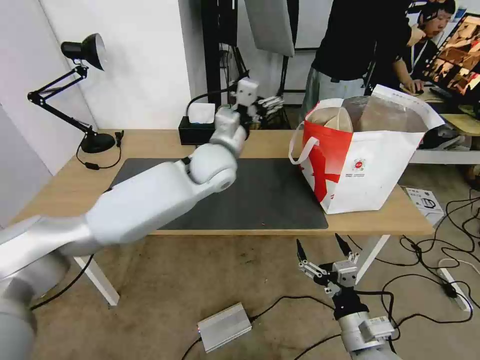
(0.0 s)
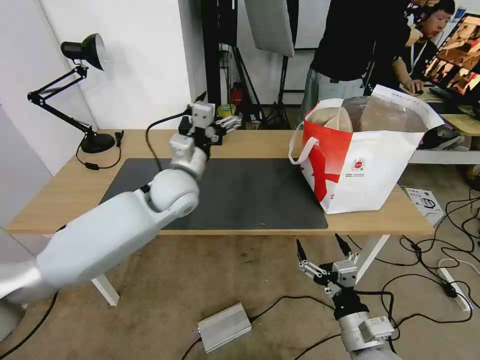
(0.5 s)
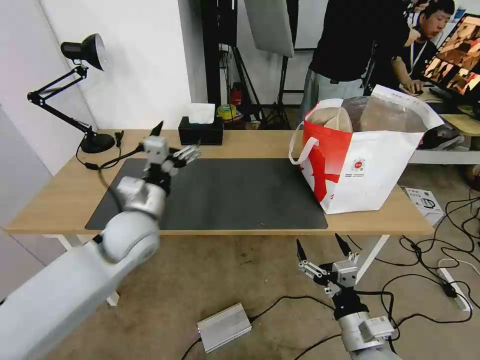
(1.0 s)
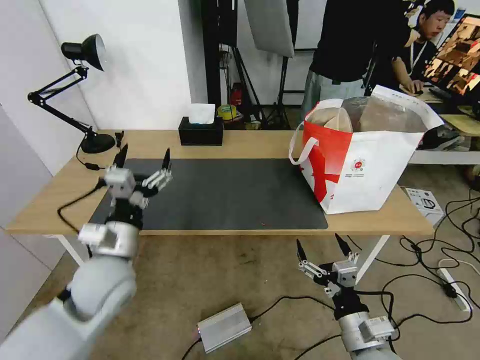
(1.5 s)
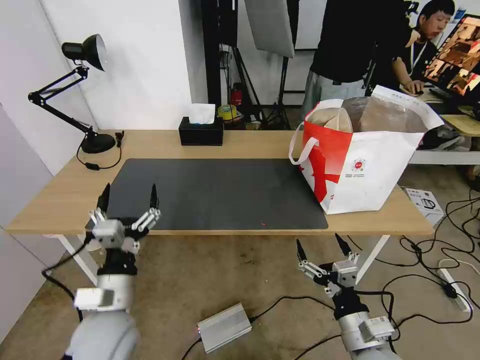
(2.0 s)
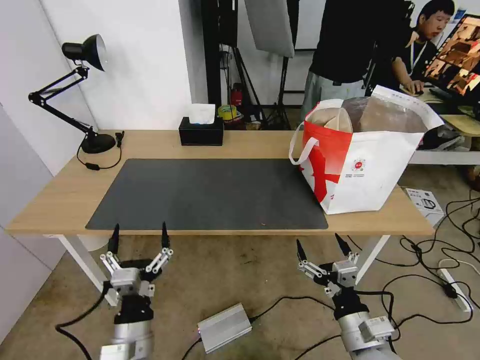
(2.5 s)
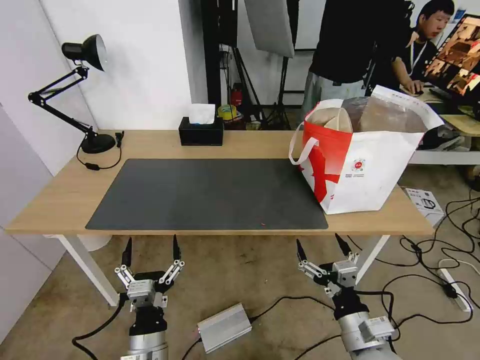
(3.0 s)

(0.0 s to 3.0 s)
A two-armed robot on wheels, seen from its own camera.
Task of the whole recording: Pick up the trash from the table and place it into the takeout bag.
0.0 s - 1.5 s: The left gripper is displaced backward, to the left and downward by about 30 cm.
1.5 s - 3.0 s: The left gripper is displaced backward, downward and to the right by approximately 20 cm.

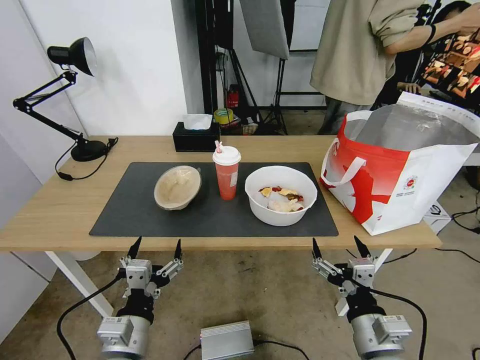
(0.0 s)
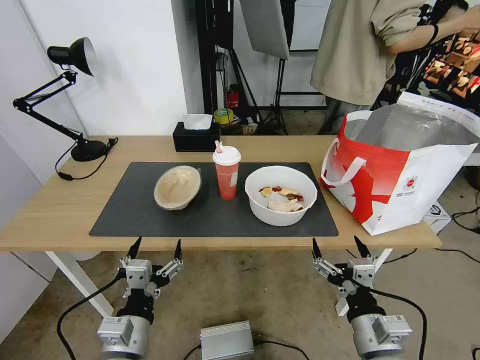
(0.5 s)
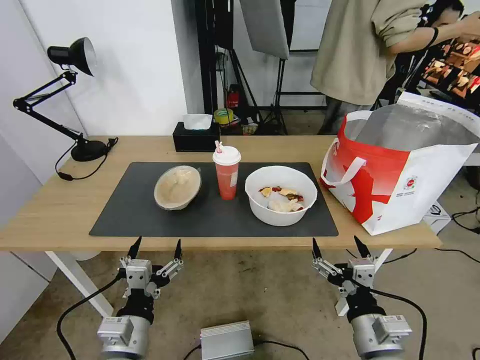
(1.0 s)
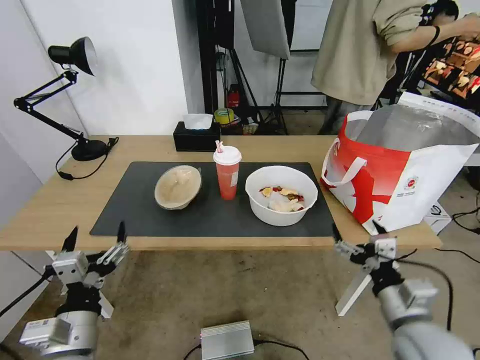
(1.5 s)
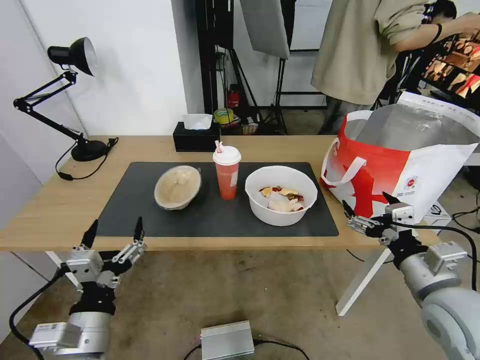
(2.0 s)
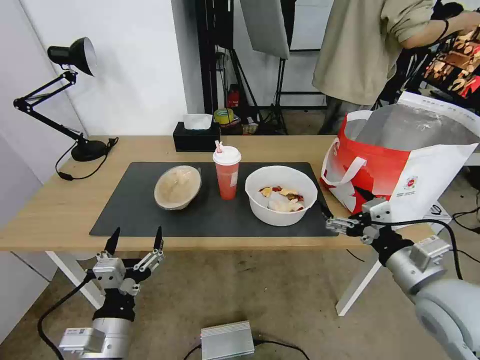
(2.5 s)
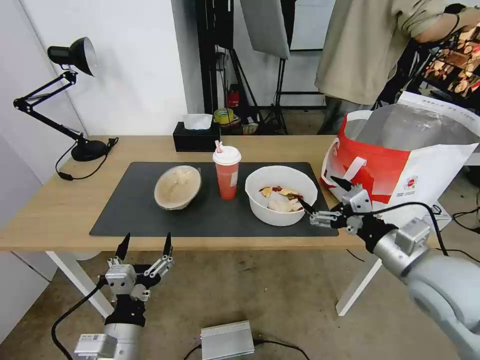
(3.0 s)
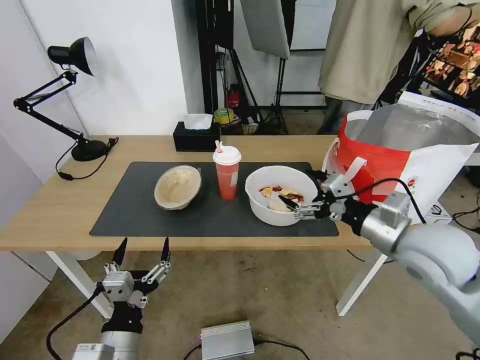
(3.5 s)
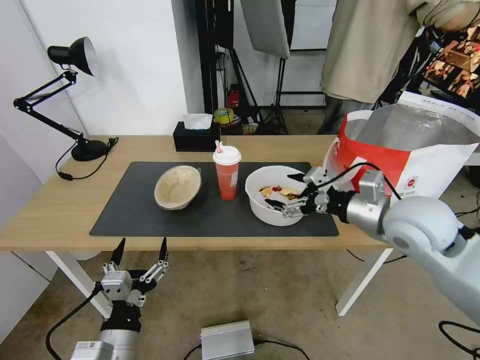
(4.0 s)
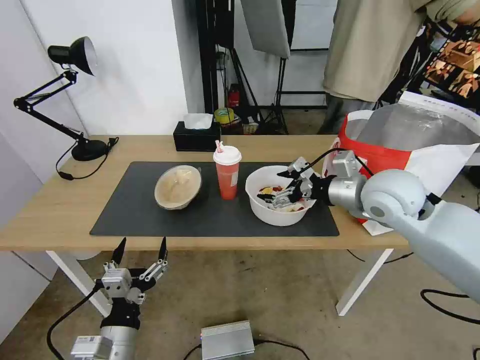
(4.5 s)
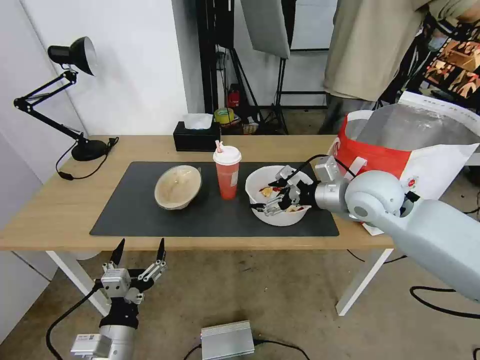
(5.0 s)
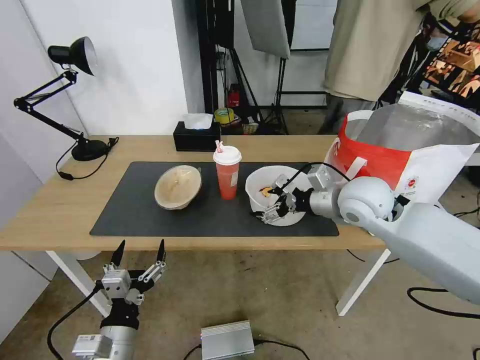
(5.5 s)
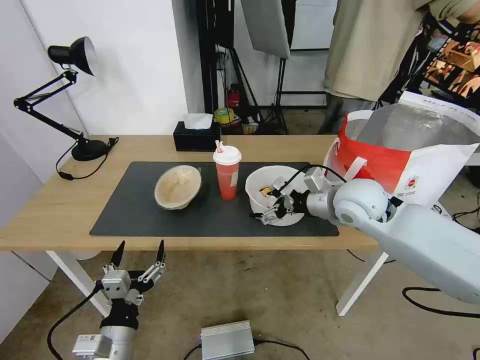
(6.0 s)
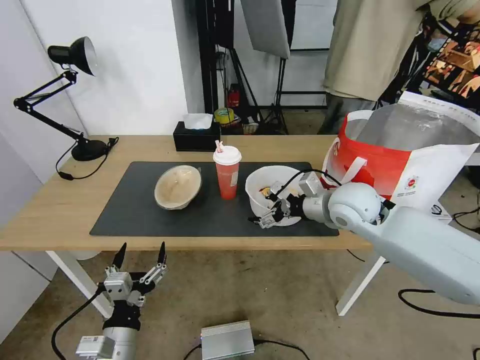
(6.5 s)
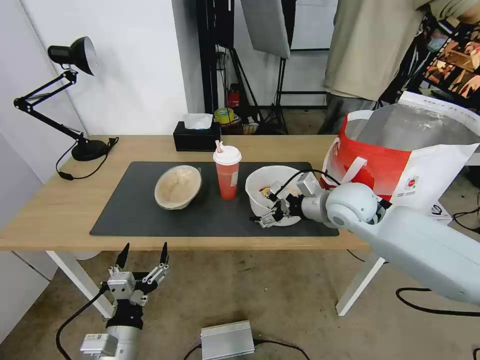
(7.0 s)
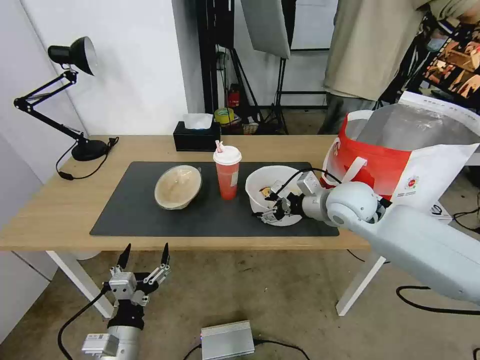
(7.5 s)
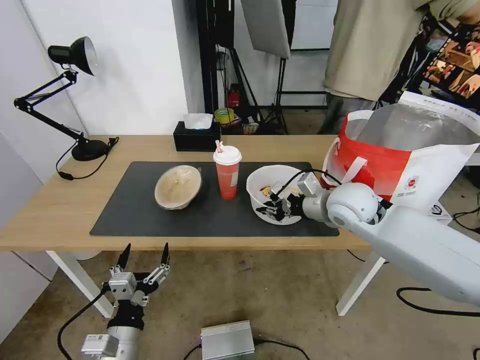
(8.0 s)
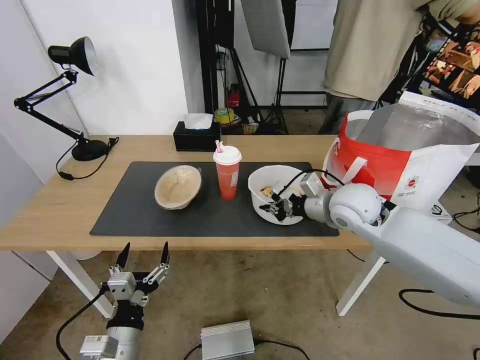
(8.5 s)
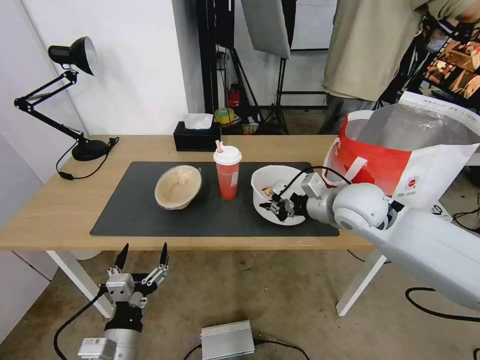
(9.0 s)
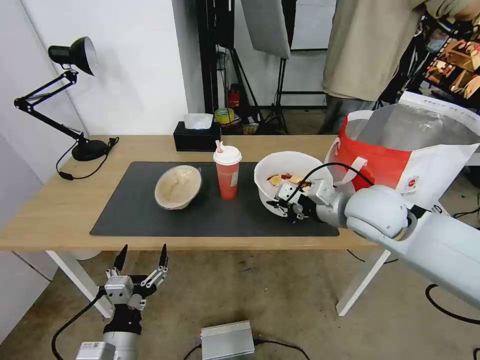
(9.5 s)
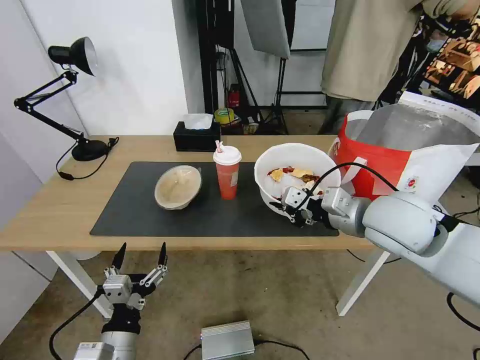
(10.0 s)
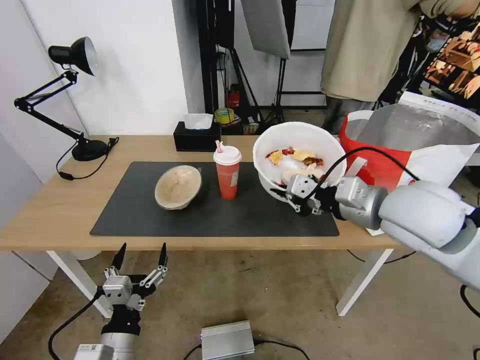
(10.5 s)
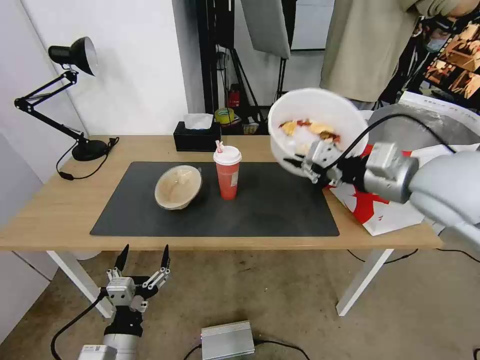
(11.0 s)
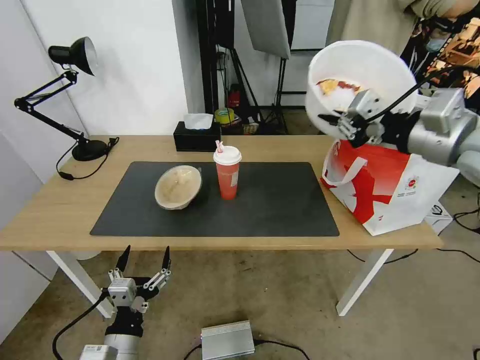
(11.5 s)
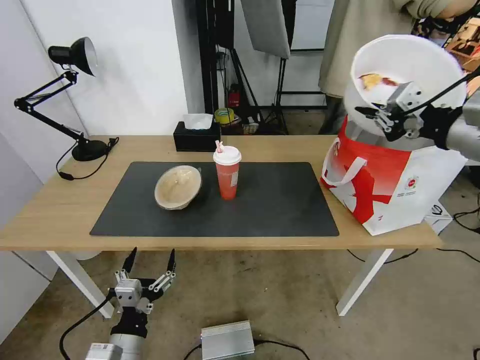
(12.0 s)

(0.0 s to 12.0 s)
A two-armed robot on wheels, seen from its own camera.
Task of the whole recording: Pick up the trash from the table and place it into the takeout bag.
2.0 s - 4.0 s: The right gripper is displaced forward and upward by roughly 15 cm. Meanwhile the left gripper changes place by some 5 cm.
4.0 s - 6.0 s: The right gripper goes some 10 cm forward and to the left.
6.0 s - 8.0 s: The right gripper closes up.
8.0 s - 10.0 s: The right gripper travels backward and upward by some 10 cm.
10.0 s - 12.0 s: The right gripper heads upward and to the right, covering approximately 20 cm.

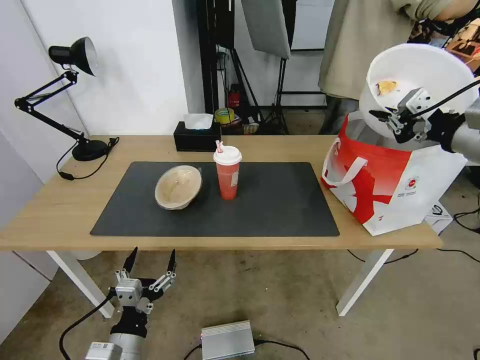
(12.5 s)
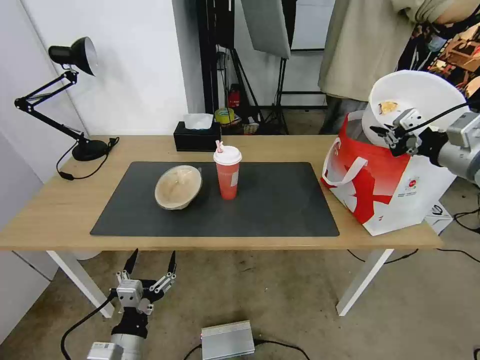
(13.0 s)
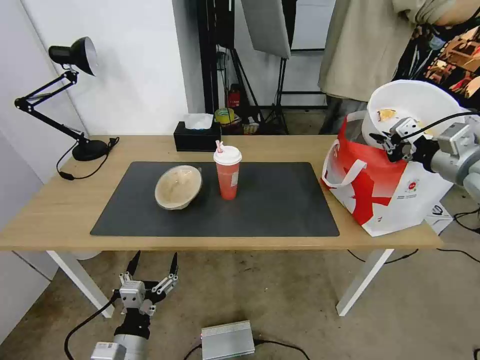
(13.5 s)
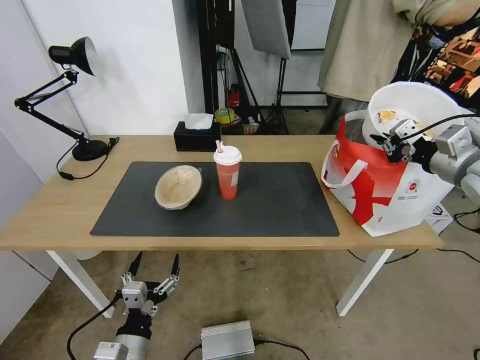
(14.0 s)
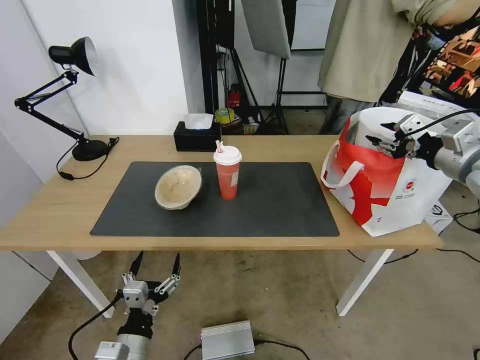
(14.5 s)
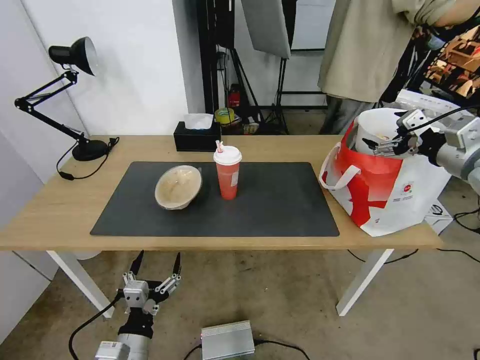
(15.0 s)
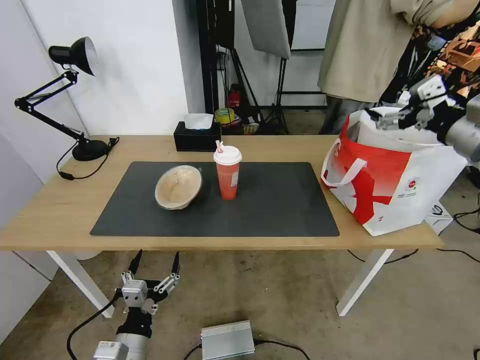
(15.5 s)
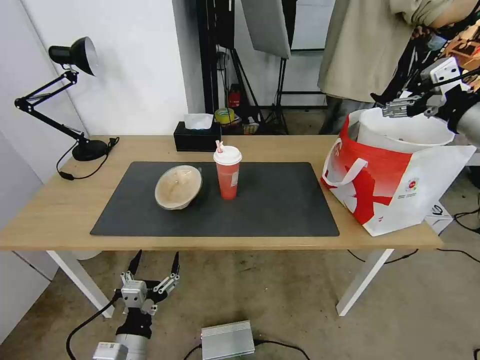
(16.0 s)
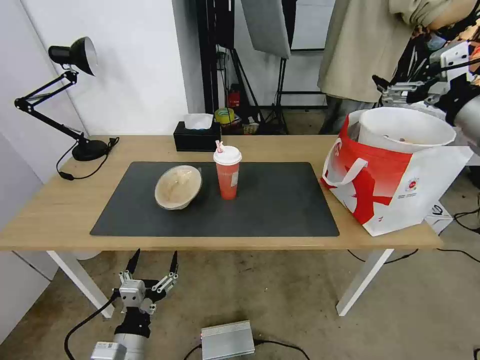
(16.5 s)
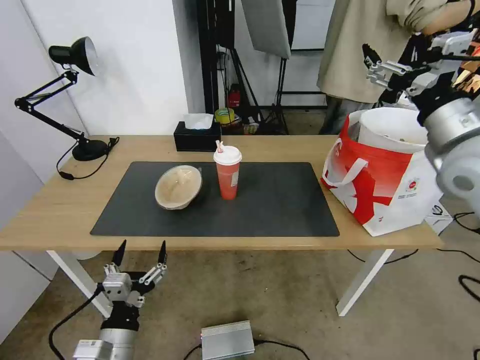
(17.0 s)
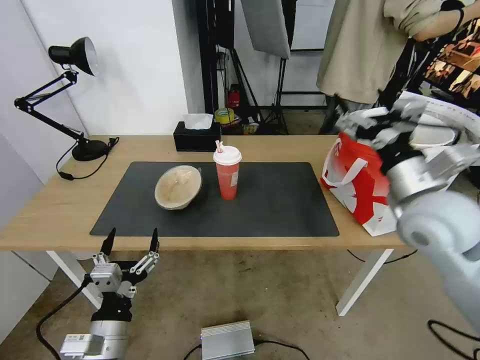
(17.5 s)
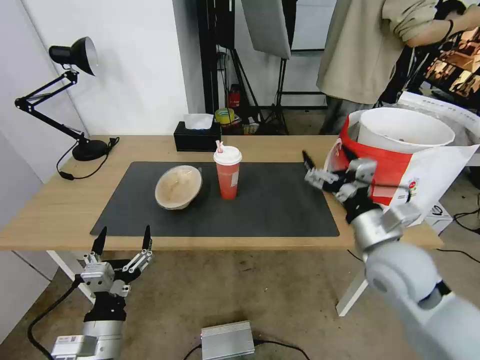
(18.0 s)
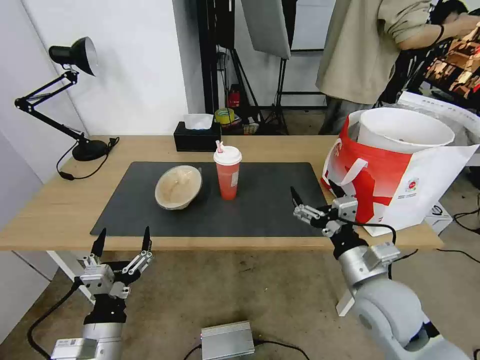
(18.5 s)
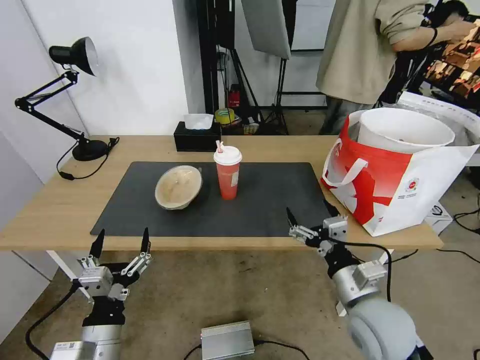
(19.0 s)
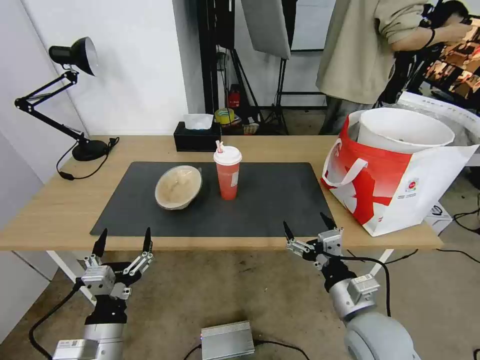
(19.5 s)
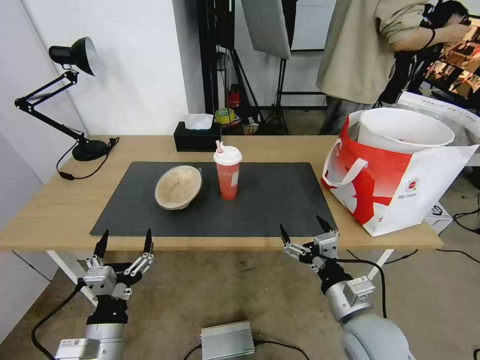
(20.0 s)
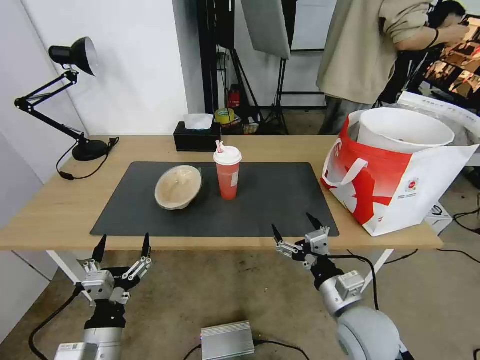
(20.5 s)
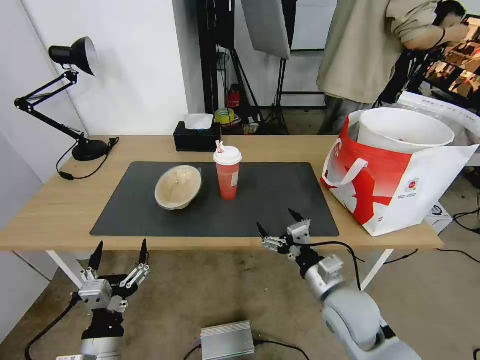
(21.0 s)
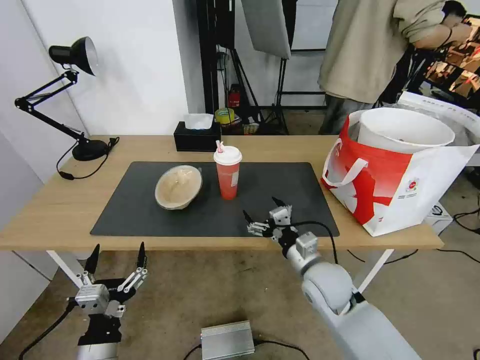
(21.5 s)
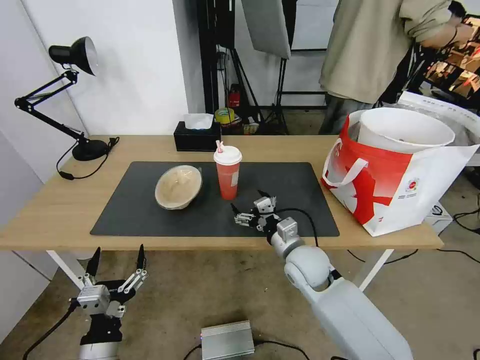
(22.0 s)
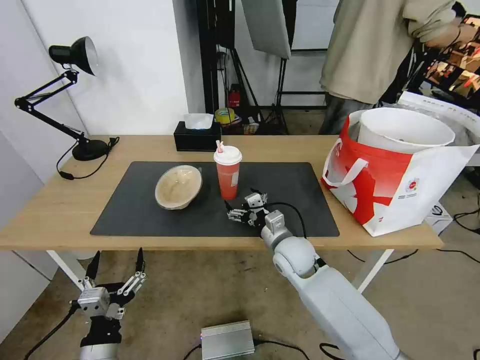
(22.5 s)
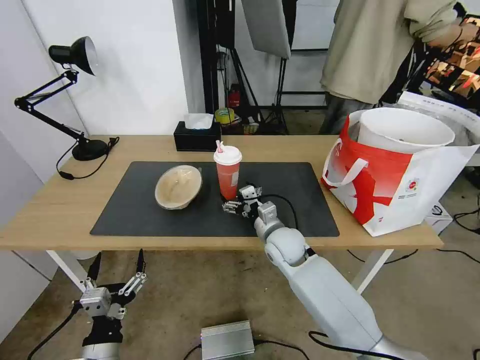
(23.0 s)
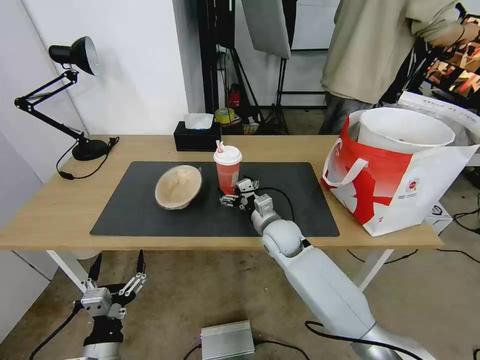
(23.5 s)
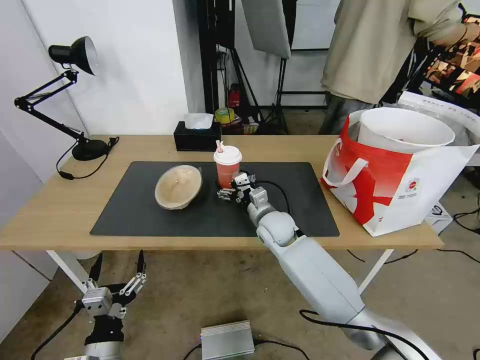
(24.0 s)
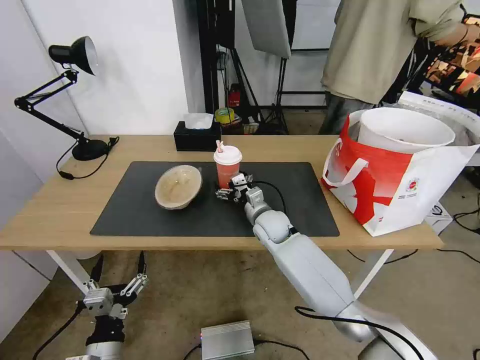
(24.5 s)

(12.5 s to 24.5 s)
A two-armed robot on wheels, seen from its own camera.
Task of the whole recording: Pick up the trash from the table and place it into the takeout bag.
12.5 s - 14.5 s: The right gripper travels downward by approximately 5 cm, and opens up.
14.5 s - 16.5 s: The right gripper moves upward, approximately 5 cm, and opens its fingers.
16.5 s - 18.5 s: The right gripper heads downward, to the left and backward, covering approximately 30 cm, while the left gripper goes about 5 cm upward.
18.5 s - 20.5 s: The right gripper is displaced downward by some 5 cm.
20.5 s - 22.5 s: The right gripper shifts about 20 cm forward and to the left.
22.5 s - 24.5 s: The right gripper is displaced forward by roughly 10 cm.
